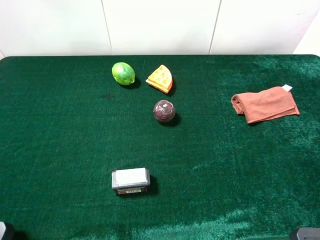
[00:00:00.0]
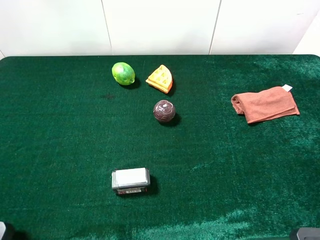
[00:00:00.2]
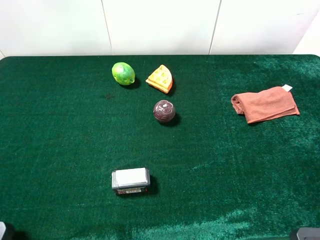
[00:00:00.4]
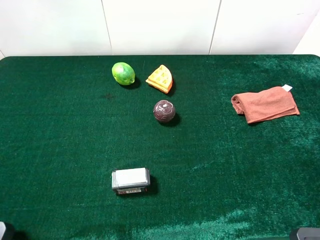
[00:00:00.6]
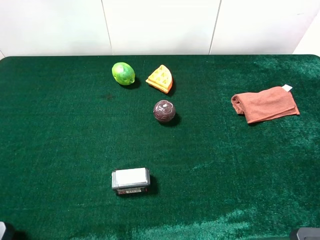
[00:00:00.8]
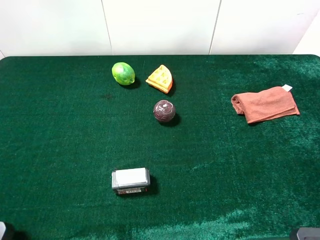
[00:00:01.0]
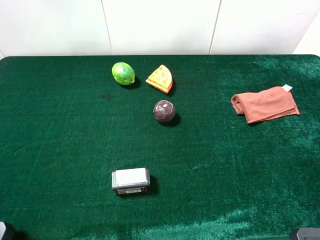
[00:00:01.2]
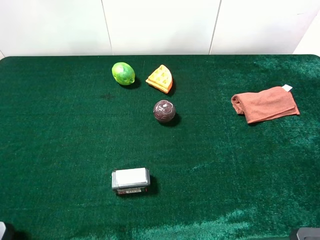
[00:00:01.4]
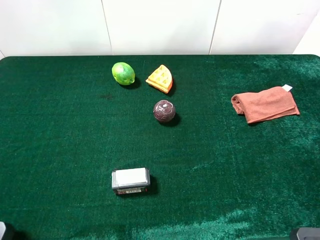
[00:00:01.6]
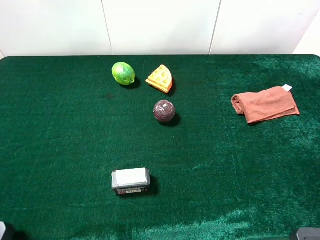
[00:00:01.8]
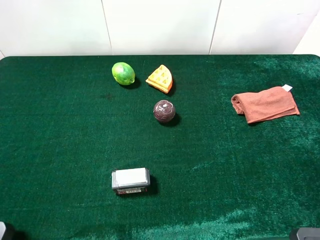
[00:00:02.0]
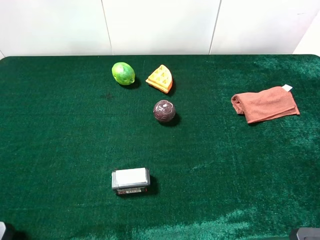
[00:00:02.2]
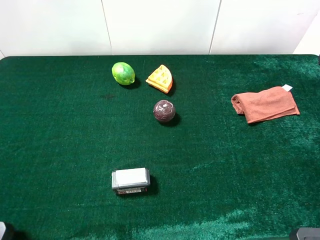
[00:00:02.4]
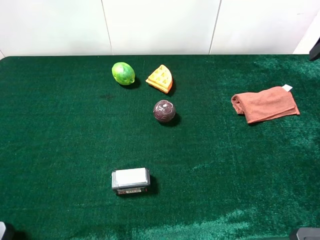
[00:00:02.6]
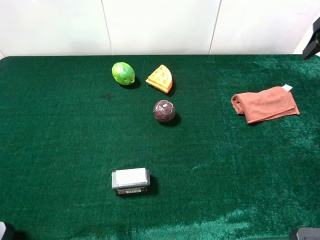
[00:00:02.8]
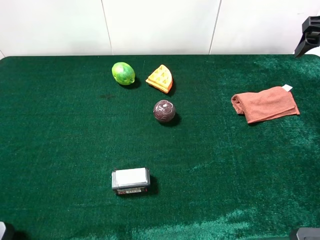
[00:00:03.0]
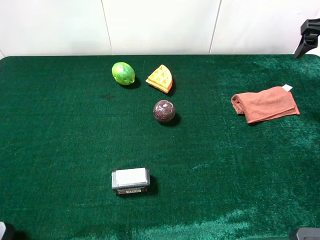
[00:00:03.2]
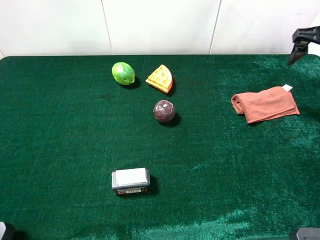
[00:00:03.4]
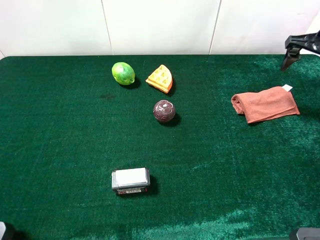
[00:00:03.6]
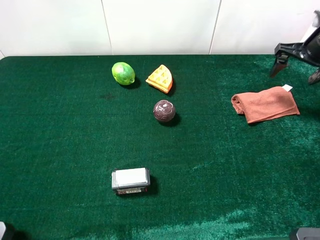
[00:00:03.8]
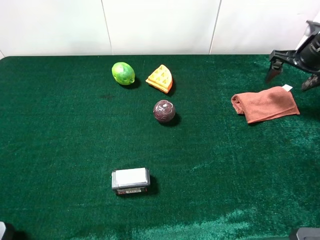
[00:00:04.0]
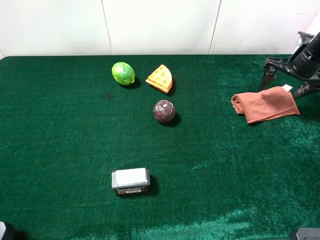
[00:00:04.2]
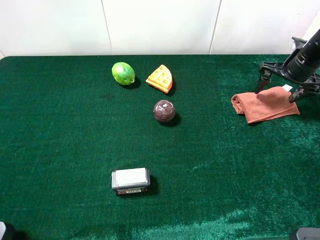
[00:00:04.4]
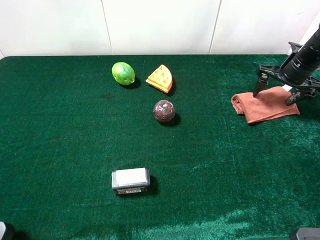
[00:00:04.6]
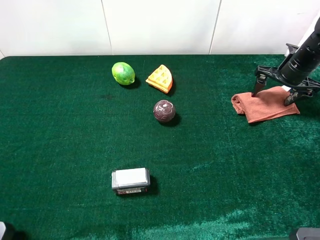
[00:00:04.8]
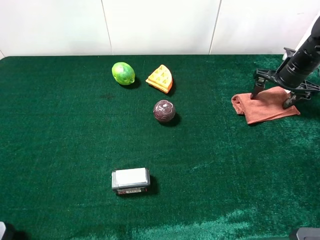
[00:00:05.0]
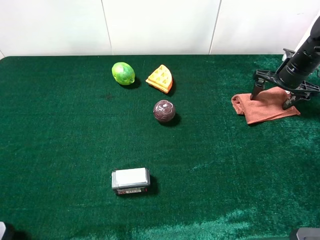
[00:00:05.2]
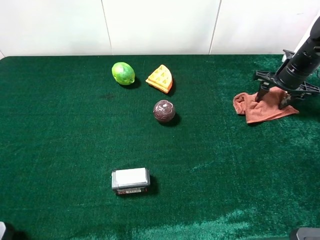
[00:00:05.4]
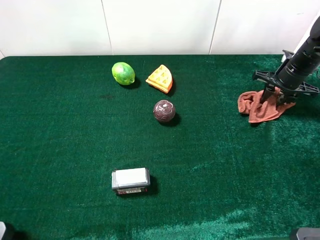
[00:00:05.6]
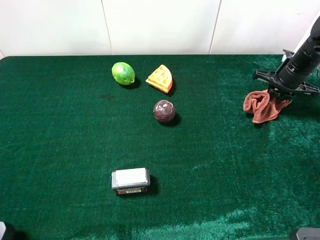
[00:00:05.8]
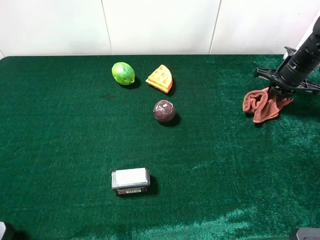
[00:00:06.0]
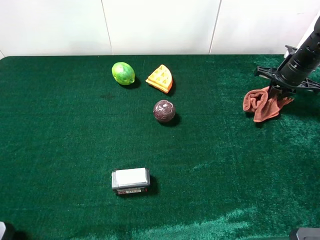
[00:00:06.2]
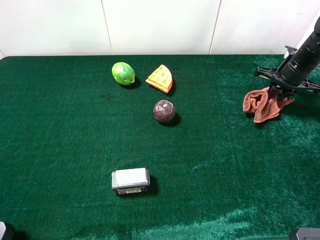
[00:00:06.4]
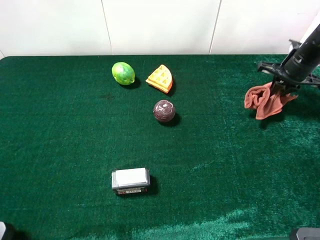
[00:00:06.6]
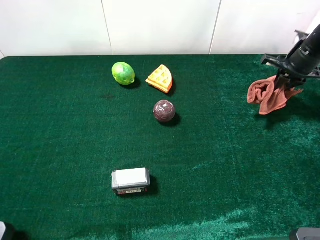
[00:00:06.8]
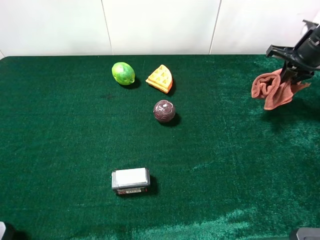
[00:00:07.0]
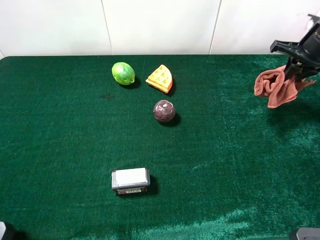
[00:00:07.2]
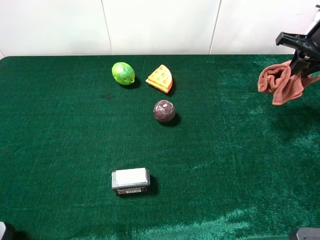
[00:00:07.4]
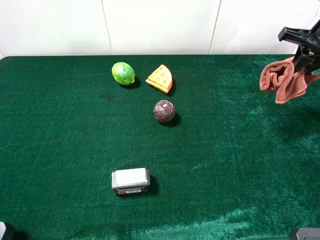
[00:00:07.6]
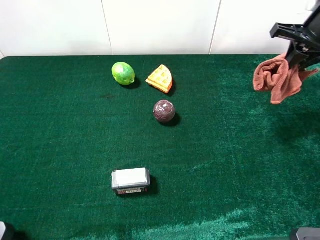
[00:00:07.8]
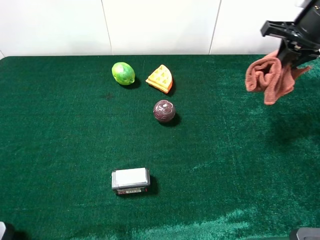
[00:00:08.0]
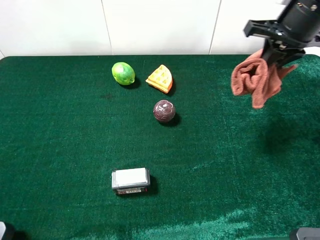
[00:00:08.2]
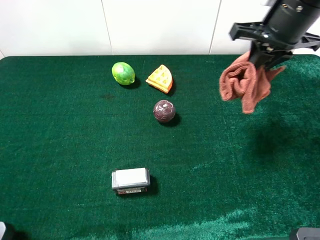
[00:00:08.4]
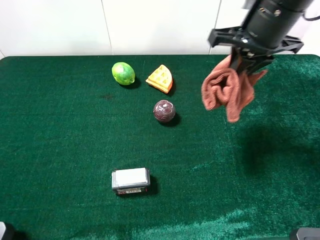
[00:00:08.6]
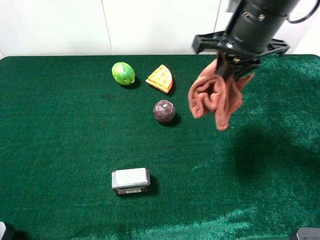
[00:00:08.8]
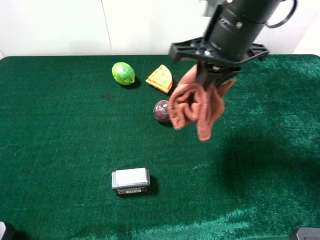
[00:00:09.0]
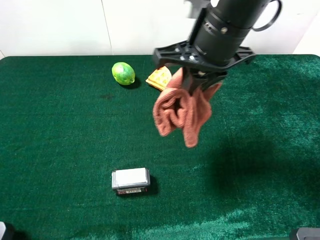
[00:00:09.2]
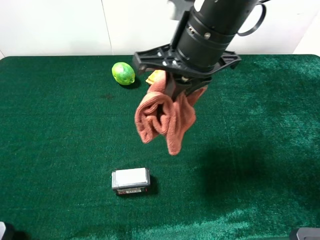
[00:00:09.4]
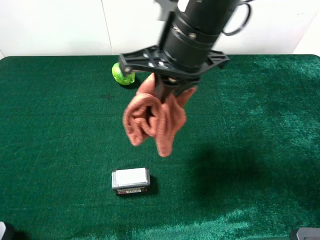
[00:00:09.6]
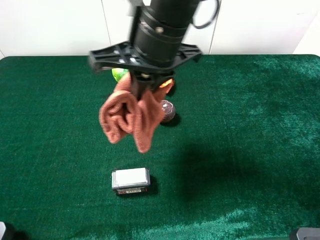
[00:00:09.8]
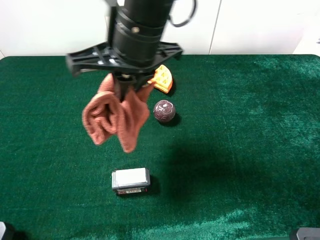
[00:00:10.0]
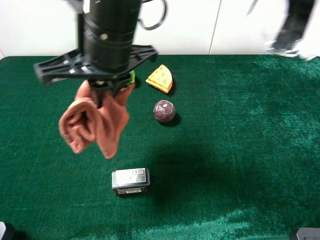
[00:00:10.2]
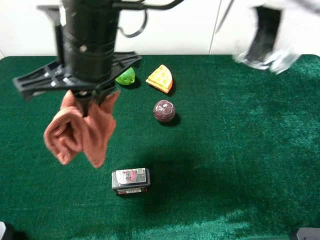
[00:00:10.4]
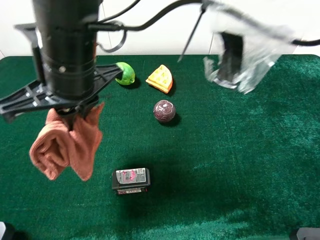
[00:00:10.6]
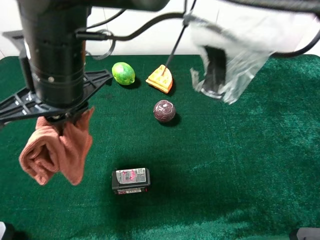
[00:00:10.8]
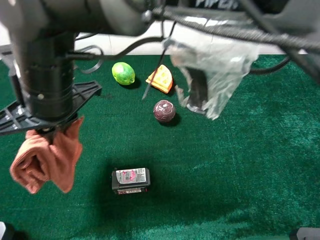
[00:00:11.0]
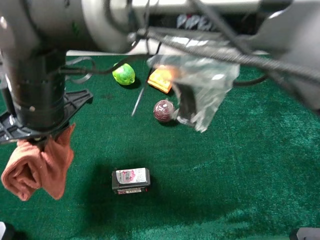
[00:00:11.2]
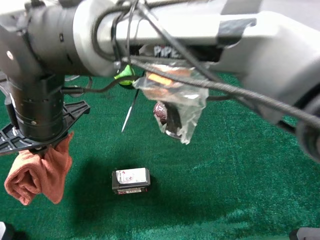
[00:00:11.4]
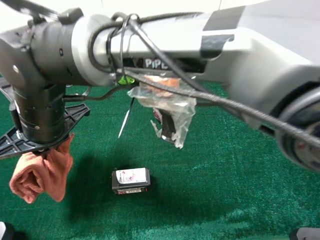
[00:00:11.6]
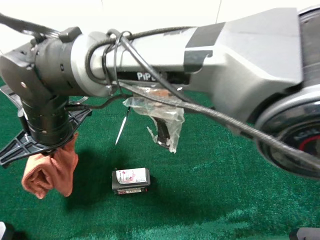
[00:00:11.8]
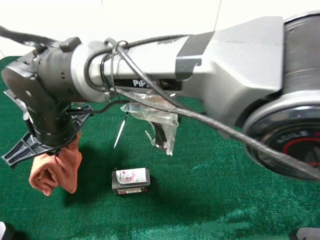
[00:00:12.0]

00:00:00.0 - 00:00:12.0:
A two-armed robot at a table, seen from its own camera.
Task of the whole recording: the gripper move the object.
Step, 00:00:00.0 - 00:00:06.0: Grasp the brown towel with the right gripper.
00:00:01.6 - 00:00:03.0: The right gripper heads forward, covering about 20 cm.
00:00:03.0 - 00:00:04.4: The right gripper heads downward and forward, covering roughly 15 cm.
00:00:04.4 - 00:00:06.0: The right gripper closes.
00:00:06.0 - 00:00:07.6: The right gripper is displaced upward by approximately 15 cm.
00:00:07.6 - 00:00:09.0: The right gripper is displaced to the left and backward by about 25 cm.
00:00:09.0 - 00:00:10.4: The right gripper heads to the left, covering about 15 cm.
00:00:10.4 - 00:00:12.0: The right gripper is displaced downward and to the left by some 15 cm.

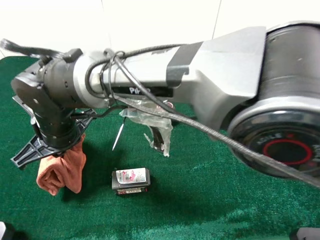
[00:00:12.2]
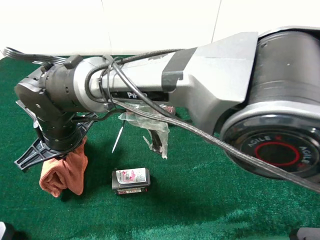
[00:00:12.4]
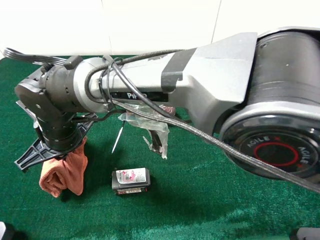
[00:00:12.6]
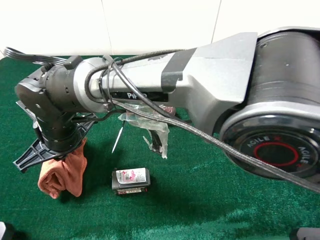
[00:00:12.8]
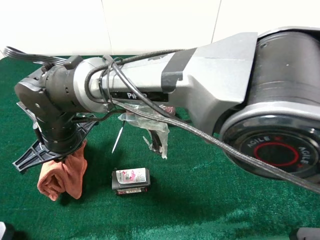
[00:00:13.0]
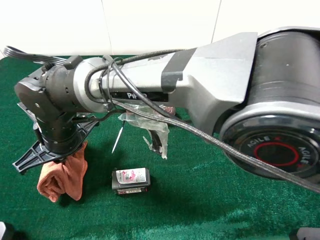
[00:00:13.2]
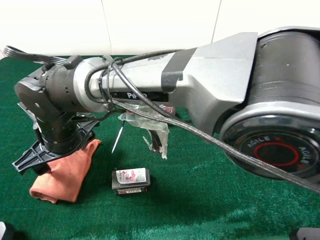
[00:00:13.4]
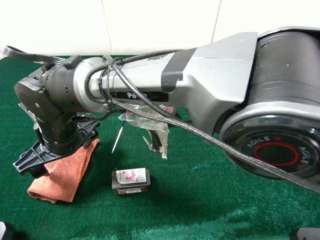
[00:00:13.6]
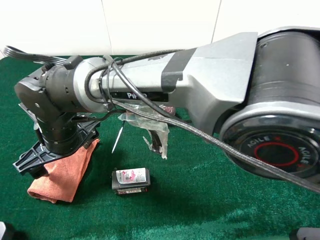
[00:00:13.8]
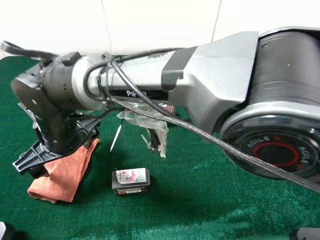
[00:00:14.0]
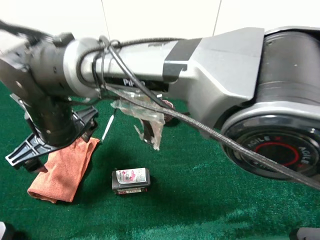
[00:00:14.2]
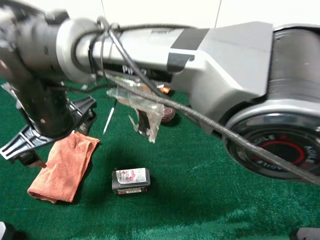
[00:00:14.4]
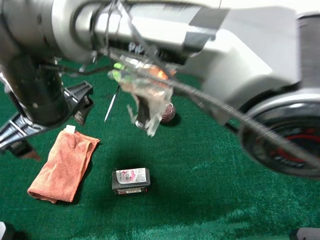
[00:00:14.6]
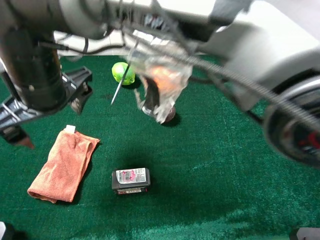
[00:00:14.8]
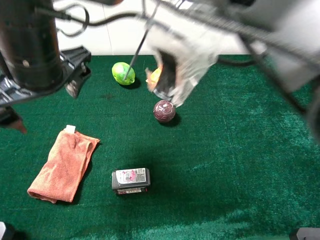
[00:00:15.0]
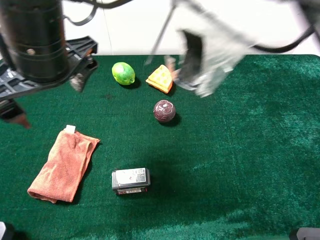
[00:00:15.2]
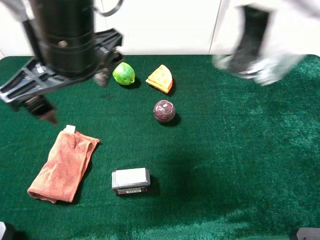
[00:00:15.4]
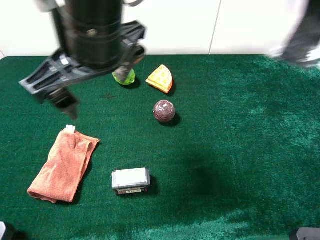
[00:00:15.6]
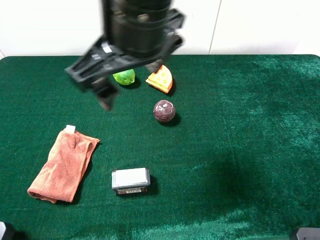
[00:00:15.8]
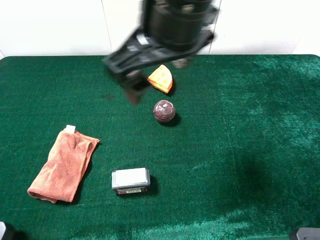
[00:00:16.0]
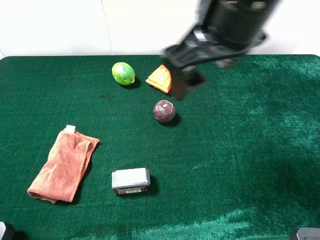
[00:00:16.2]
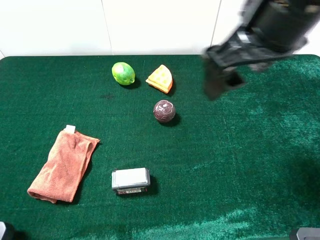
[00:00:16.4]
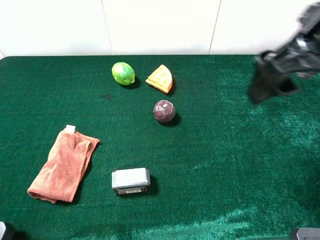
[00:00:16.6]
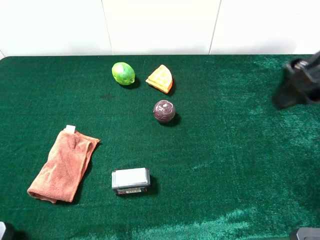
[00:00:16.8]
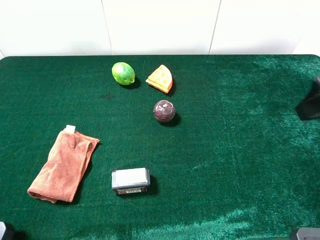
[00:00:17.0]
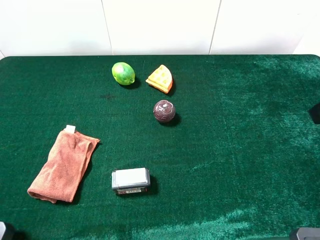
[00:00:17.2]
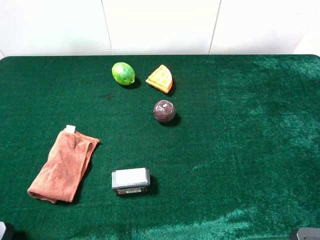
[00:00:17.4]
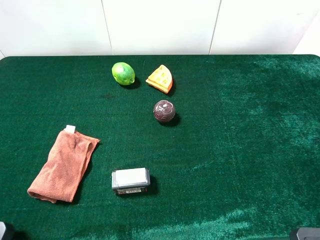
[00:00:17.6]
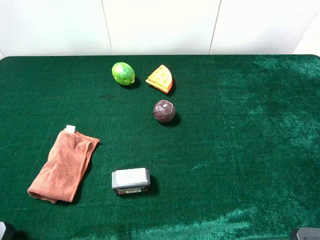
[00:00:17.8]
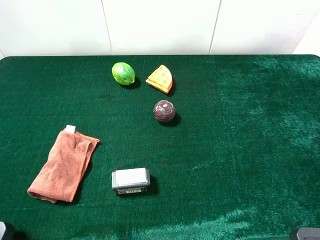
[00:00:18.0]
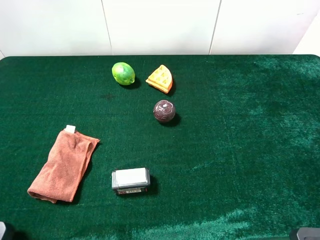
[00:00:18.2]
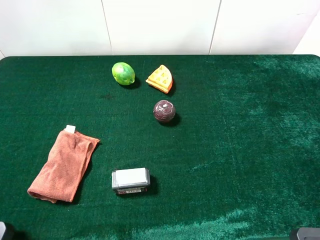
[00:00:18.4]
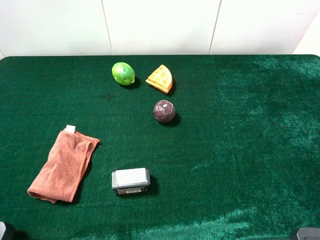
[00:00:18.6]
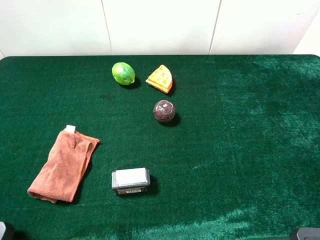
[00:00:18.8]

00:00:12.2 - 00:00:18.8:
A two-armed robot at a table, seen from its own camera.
Task of the whole recording: the gripper move the object.
Step, 00:00:12.2 - 00:00:14.2: Place the brown towel on the table with the right gripper.
00:00:12.2 - 00:00:13.8: The right gripper opens.
00:00:13.8 - 00:00:15.4: The right gripper shifts approximately 20 cm upward and to the right.
00:00:15.4 - 00:00:17.2: The right gripper goes some 35 cm to the right.
